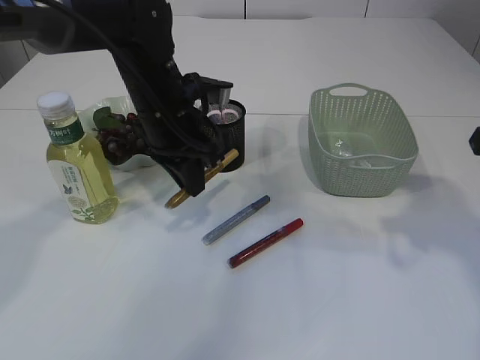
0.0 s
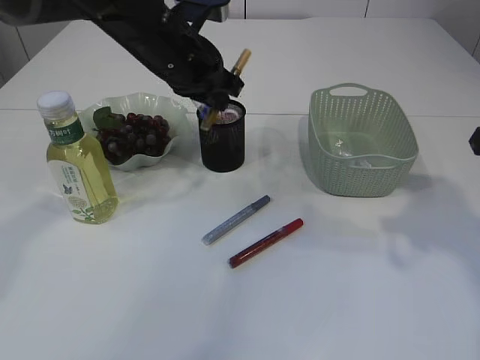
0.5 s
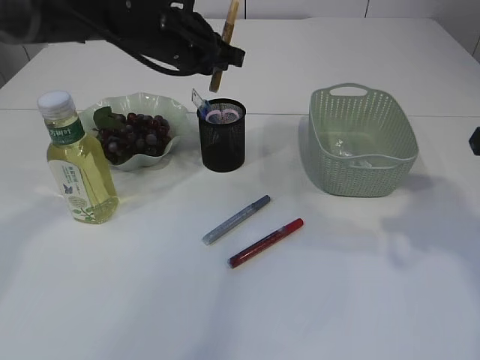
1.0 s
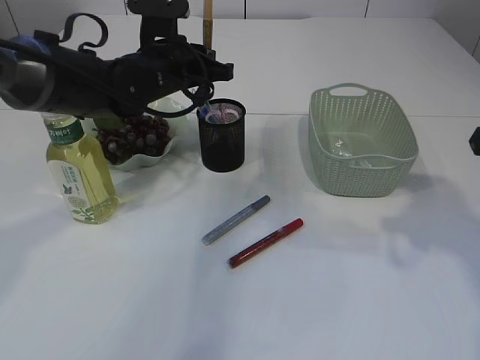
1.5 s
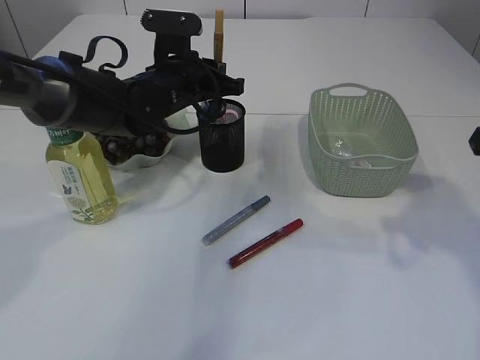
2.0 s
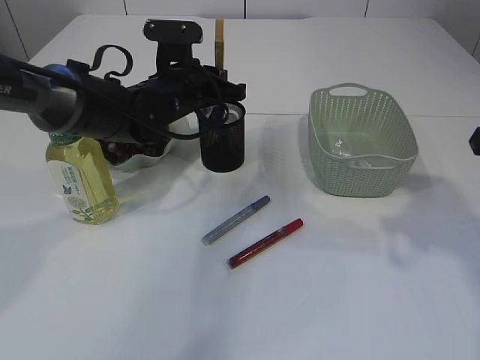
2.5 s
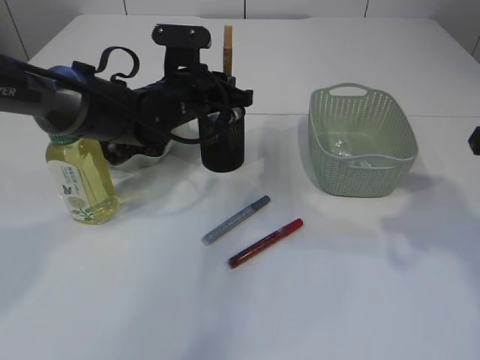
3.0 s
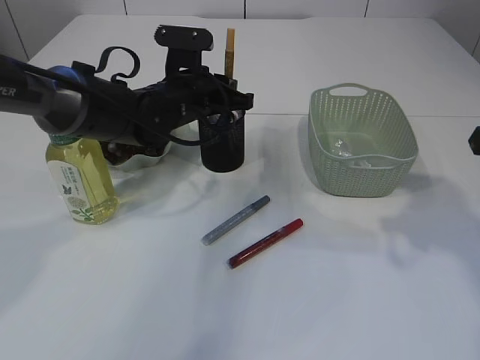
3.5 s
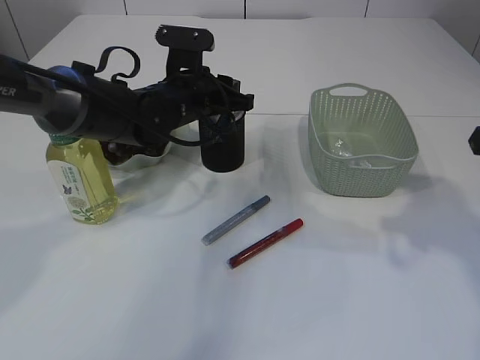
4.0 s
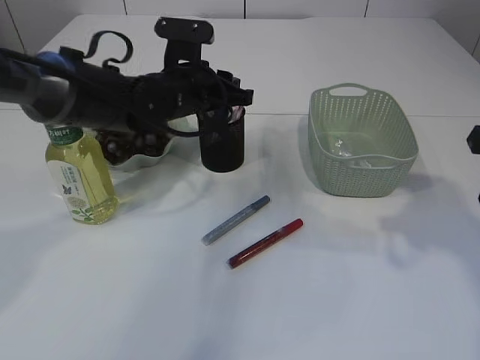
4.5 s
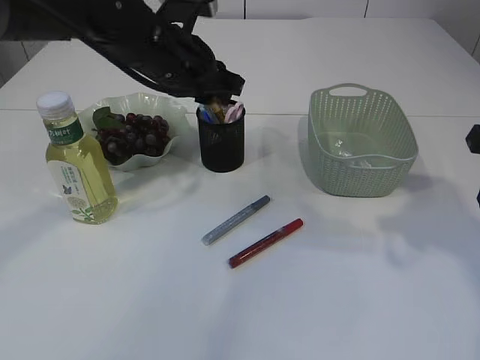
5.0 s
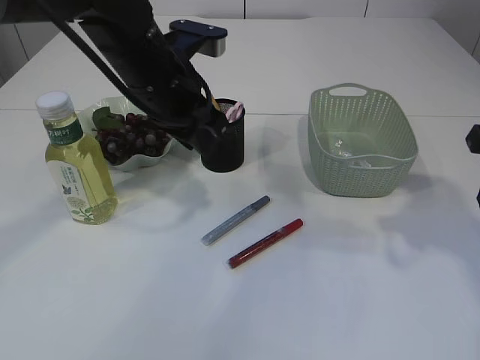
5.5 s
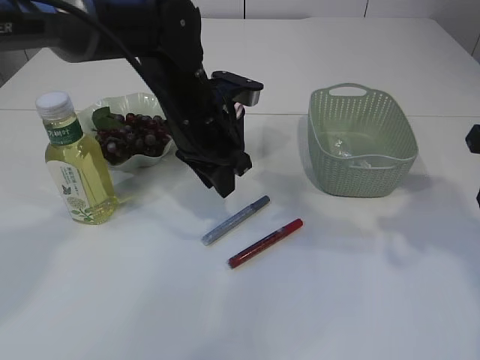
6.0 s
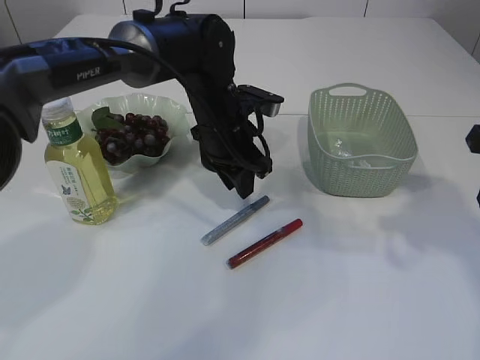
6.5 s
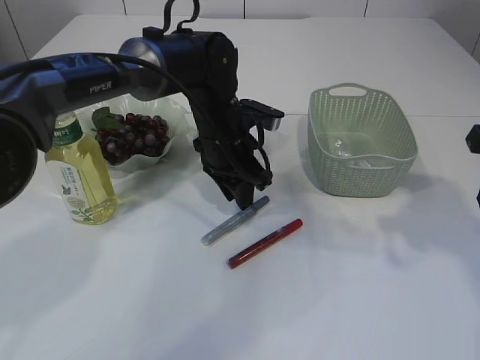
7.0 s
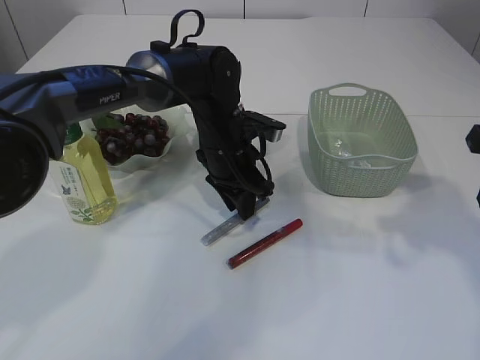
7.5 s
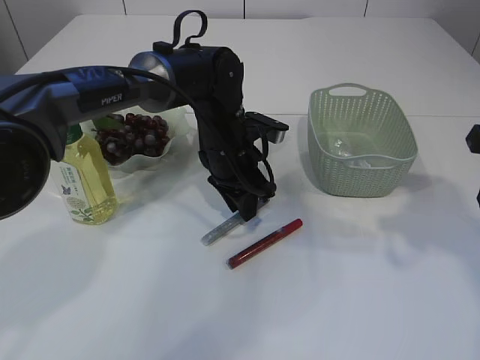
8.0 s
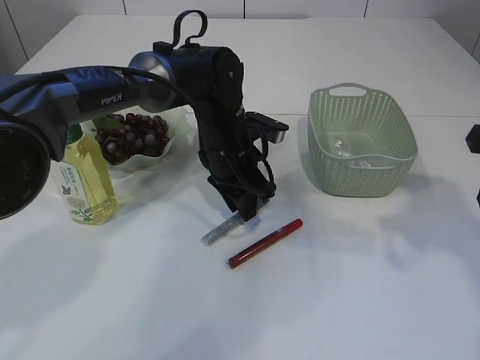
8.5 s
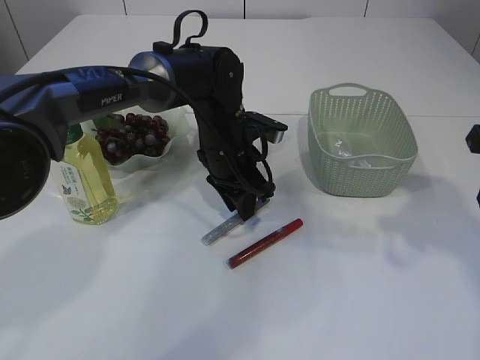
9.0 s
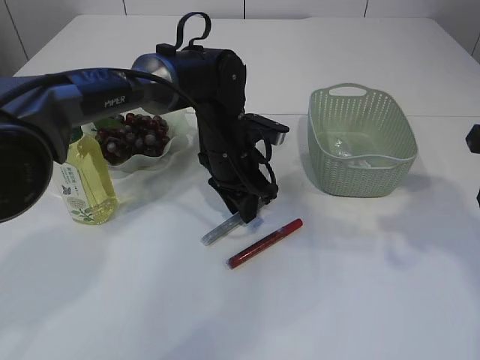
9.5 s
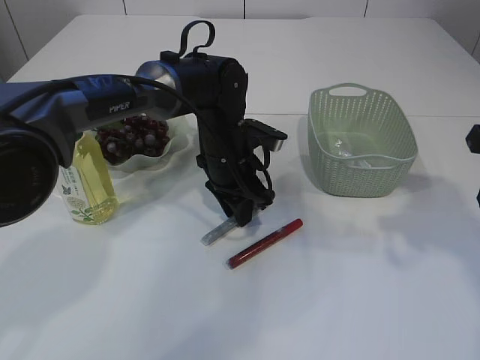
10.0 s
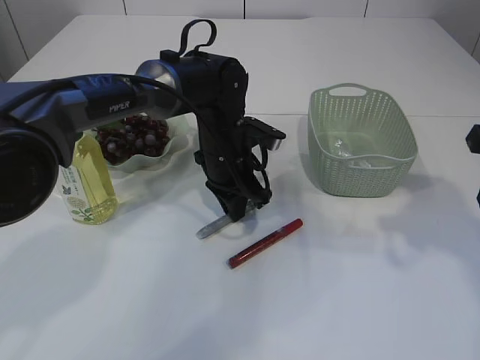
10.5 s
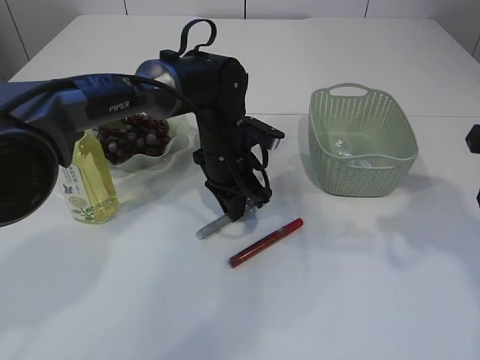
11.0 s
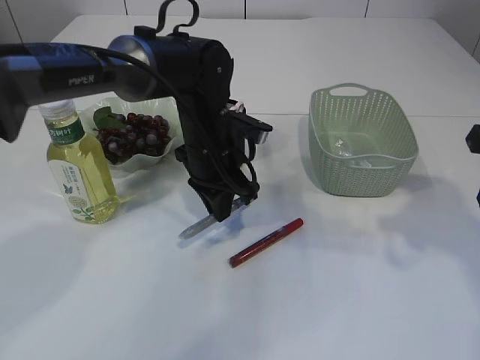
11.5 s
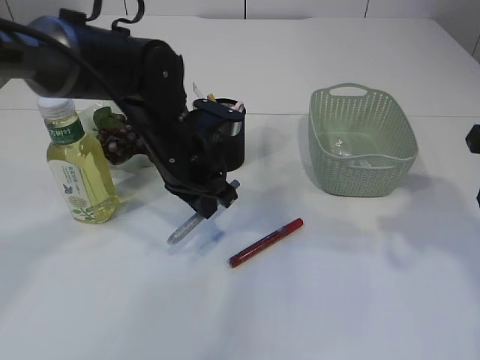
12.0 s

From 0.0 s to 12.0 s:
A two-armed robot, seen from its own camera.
Step, from 0.0 s to 4.5 s: place the yellow glue into the pen holder.
Step, from 5.0 s to 11.5 s: pick up the silver glue.
From 0.0 s to 2.0 s: The left gripper heads forward, covering some 5 cm.
From 2.0 s to 4.0 s: The grippers move only a little.
From 4.0 s to 6.0 s: The left gripper shifts some 5 cm backward.
From 6.0 s to 8.0 s: The left gripper moves downward, about 5 cm.
From 8.0 s to 10.0 s: Neither gripper changes place.
From 10.0 s to 12.0 s: The left gripper shifts some 5 cm to the left and backward.

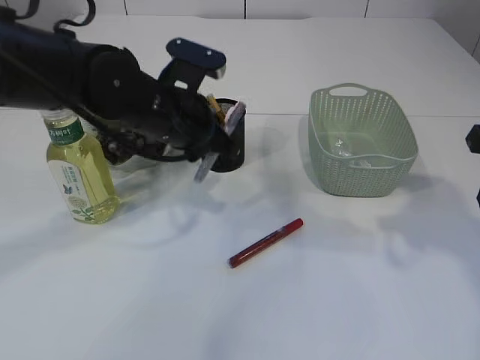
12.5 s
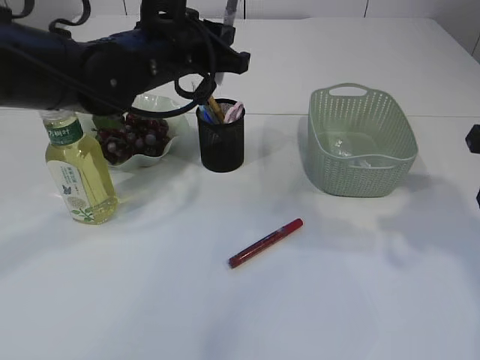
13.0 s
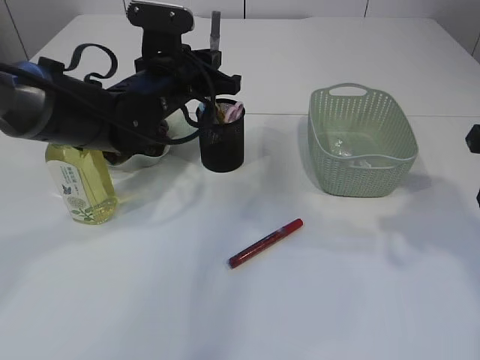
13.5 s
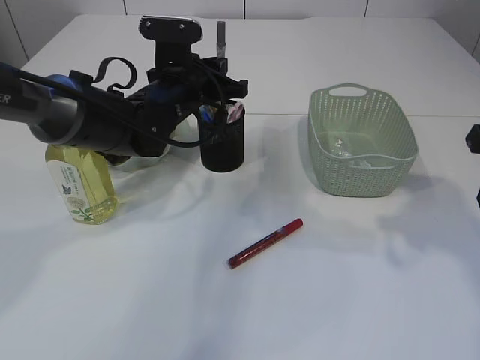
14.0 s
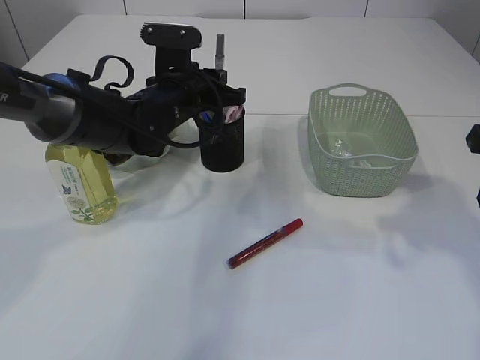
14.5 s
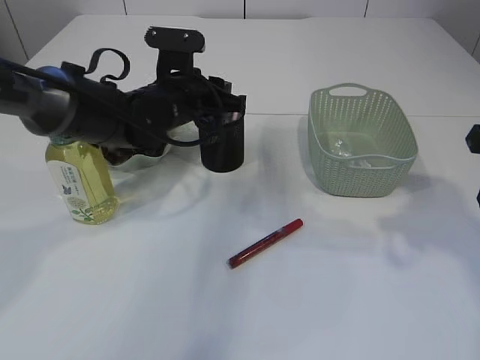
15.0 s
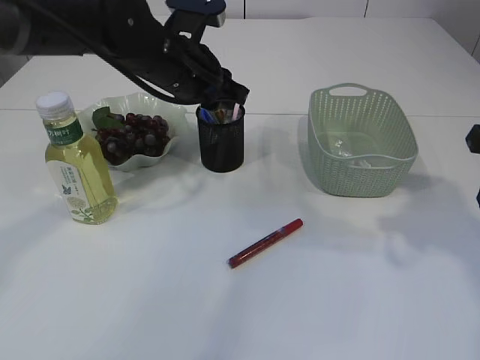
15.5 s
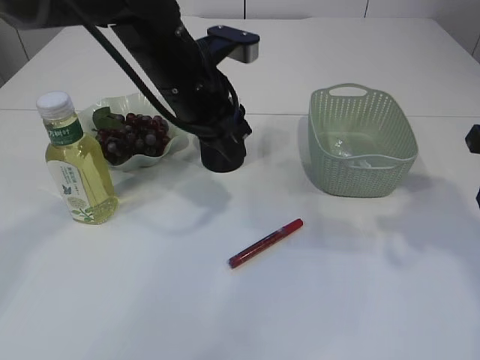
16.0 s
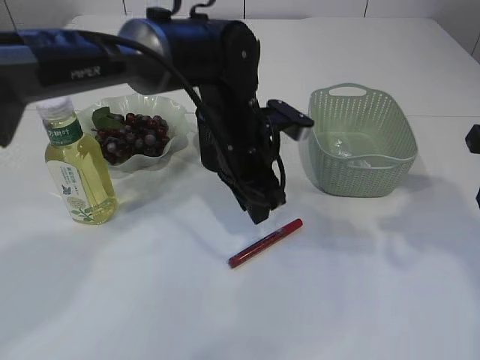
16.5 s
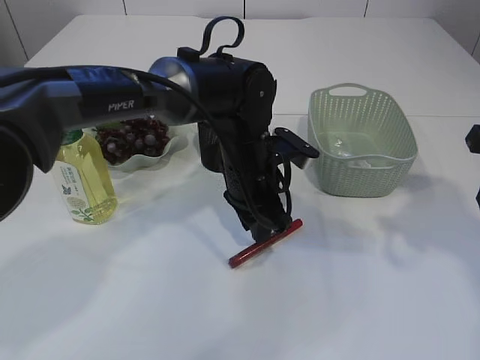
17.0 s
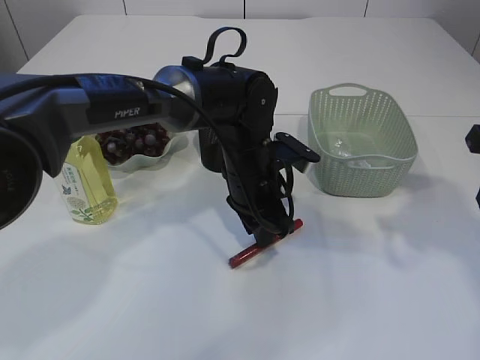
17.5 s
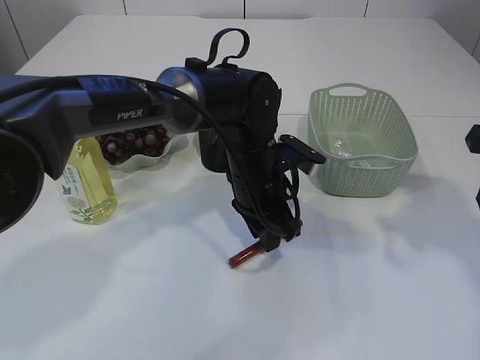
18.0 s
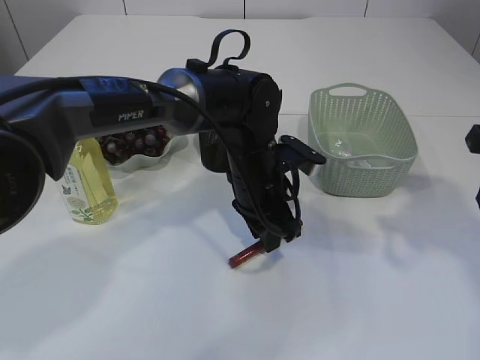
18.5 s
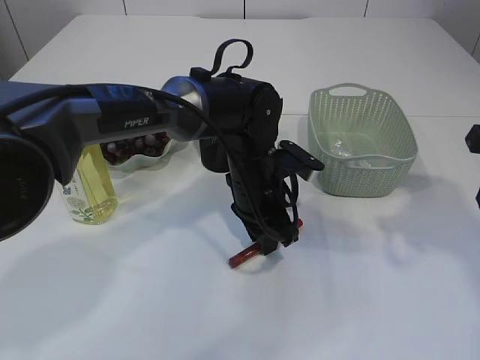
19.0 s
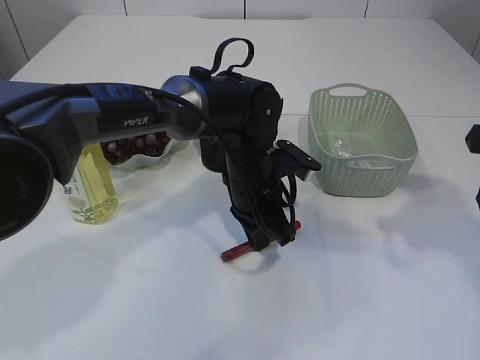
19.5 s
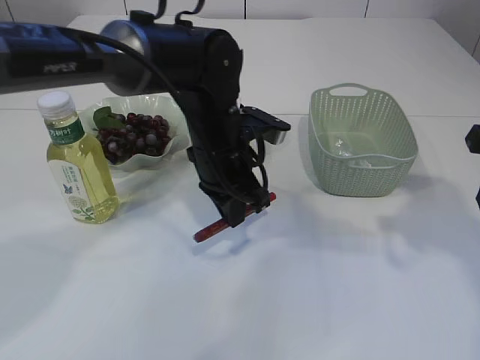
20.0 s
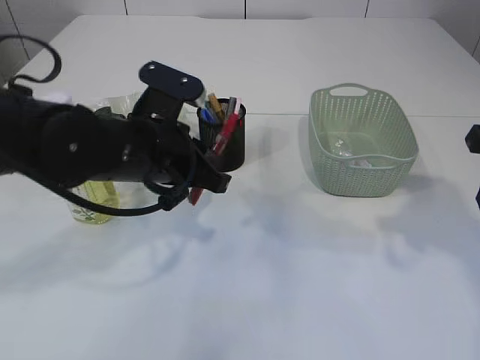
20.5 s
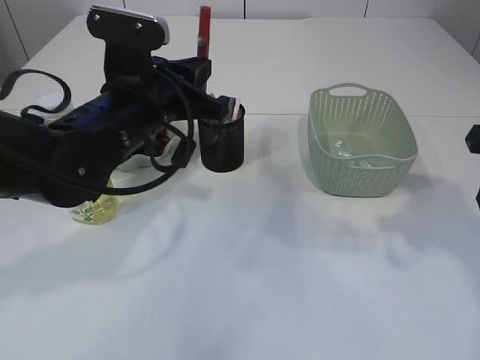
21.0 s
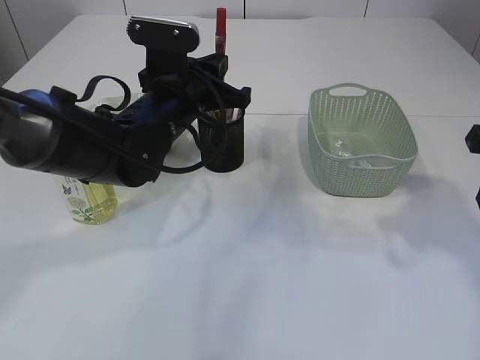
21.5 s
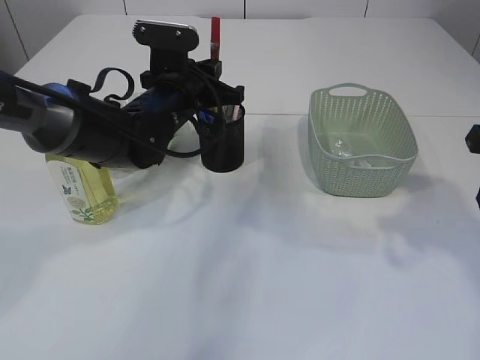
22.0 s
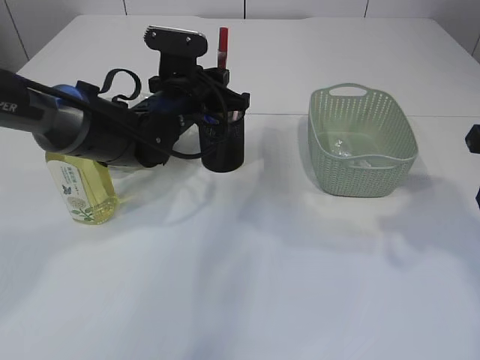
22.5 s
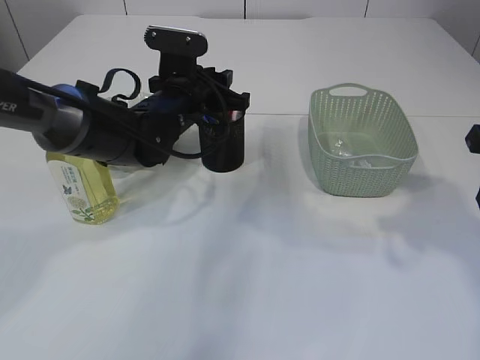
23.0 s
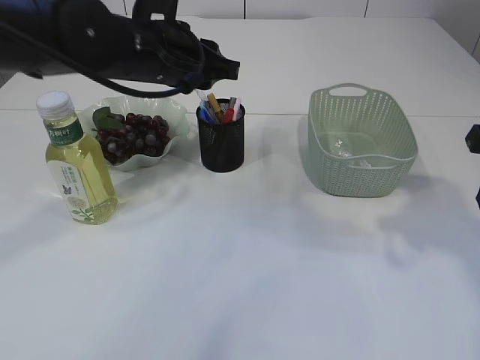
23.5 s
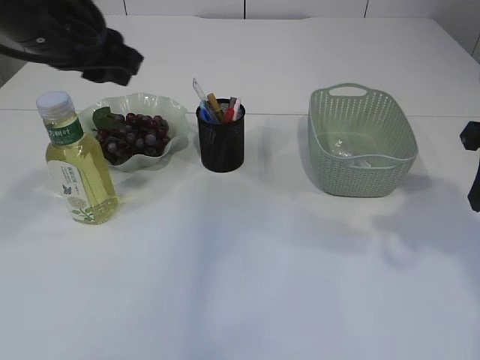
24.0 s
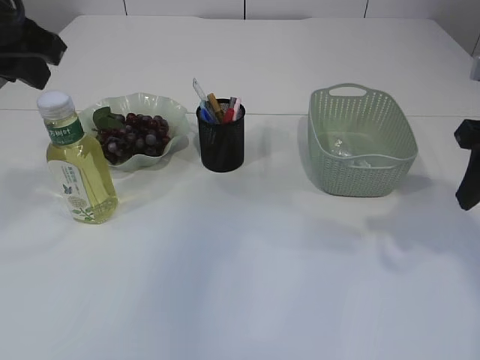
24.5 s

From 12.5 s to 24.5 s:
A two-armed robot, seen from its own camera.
Step, from 12.5 s to 15.5 s: place the silver glue into the pen holder.
Step, from 16.0 s to 20.0 s: pick up the red glue.
Step, from 20.5 s to 23.0 s: place the red glue into the pen holder.
From 12.5 s to 14.5 s: The left gripper heads forward, covering roughly 5 cm, and goes upward and returns, some 5 cm each way.
From 14.5 s to 16.5 s: The left gripper travels to the right and backward by some 10 cm.
From 16.5 s to 18.5 s: The left gripper goes about 5 cm downward.
From 18.5 s to 20.5 s: The left gripper is displaced to the left, upward and backward by roughly 15 cm, and closes its fingers.
From 20.5 s to 22.5 s: The left gripper moves forward, approximately 10 cm.
From 22.5 s to 24.5 s: The left gripper shifts approximately 25 cm upward, to the left and backward.

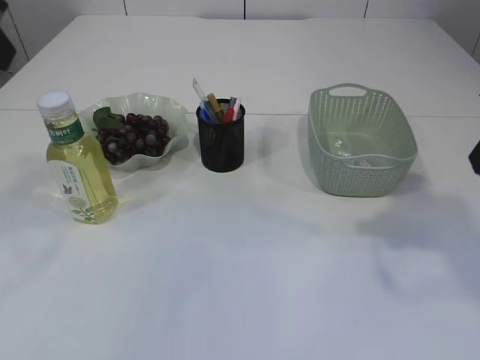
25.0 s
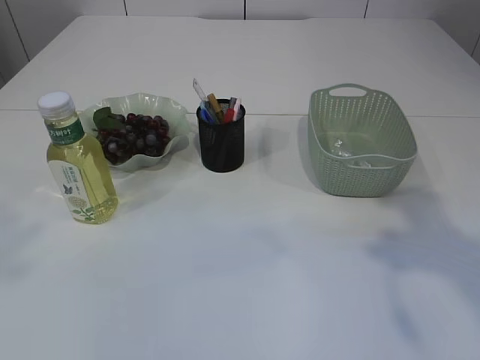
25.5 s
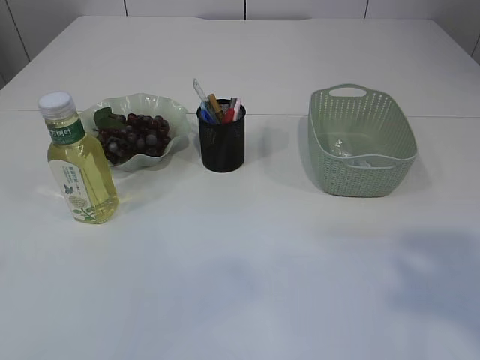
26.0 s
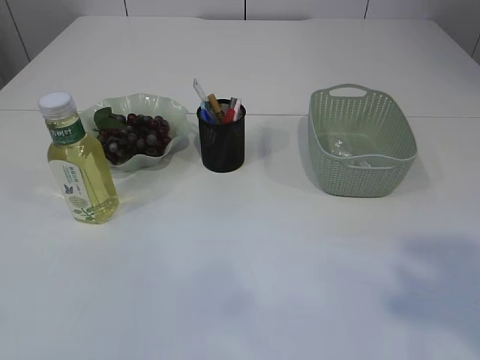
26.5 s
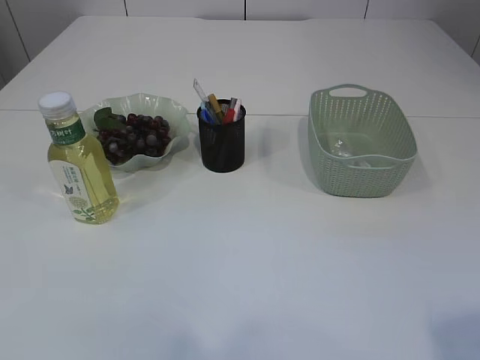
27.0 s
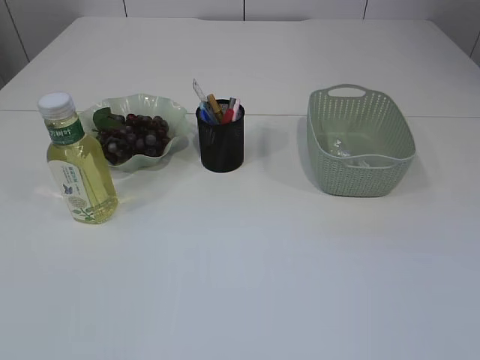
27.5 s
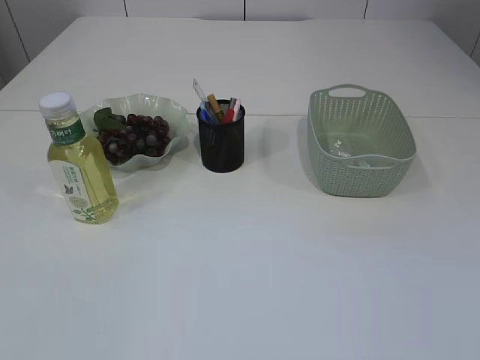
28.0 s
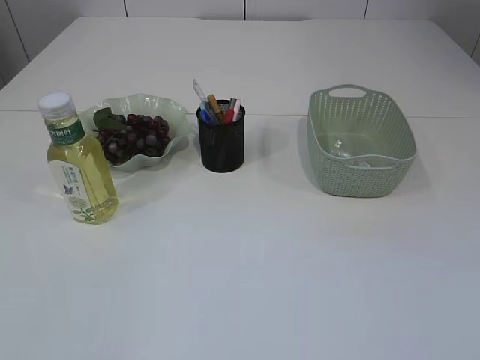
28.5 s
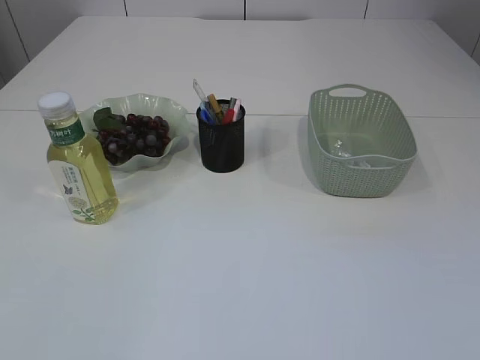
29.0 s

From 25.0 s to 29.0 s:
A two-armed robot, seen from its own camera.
From 25.0 s to 27.0 s: The left gripper goes approximately 25 cm backward and to the left. The right gripper moves backward, approximately 20 cm, and opens.
From 27.0 s to 29.0 s: The right gripper goes about 10 cm downward.
